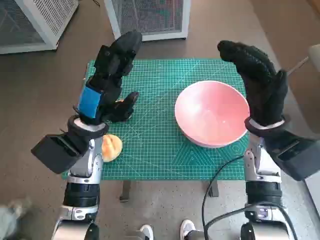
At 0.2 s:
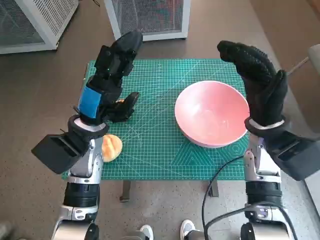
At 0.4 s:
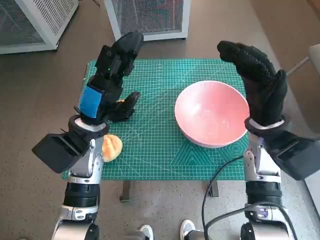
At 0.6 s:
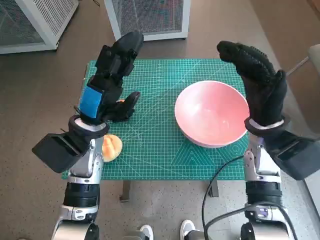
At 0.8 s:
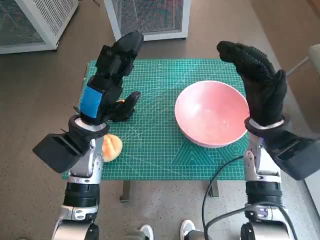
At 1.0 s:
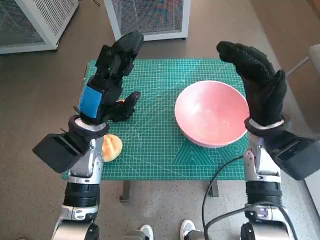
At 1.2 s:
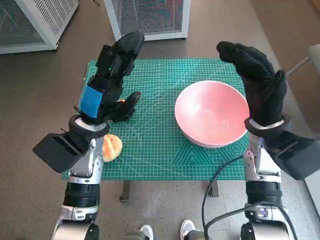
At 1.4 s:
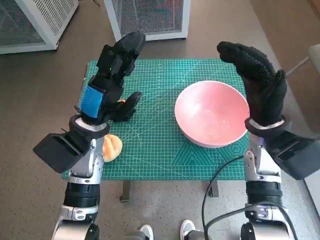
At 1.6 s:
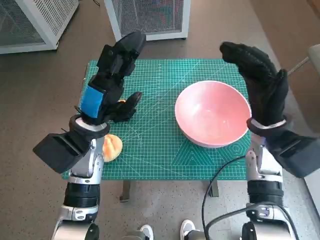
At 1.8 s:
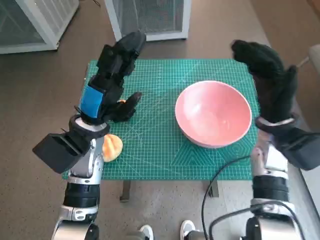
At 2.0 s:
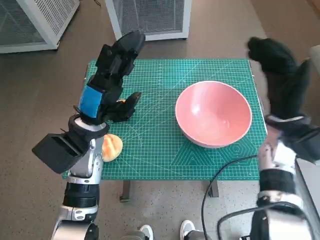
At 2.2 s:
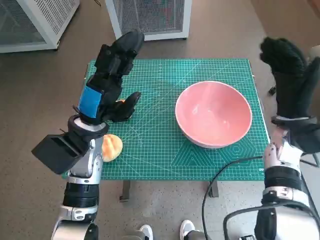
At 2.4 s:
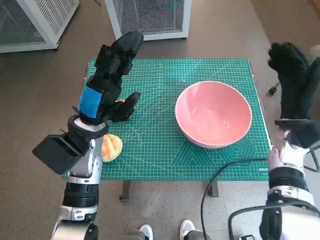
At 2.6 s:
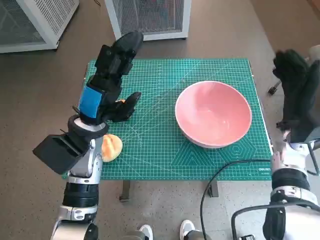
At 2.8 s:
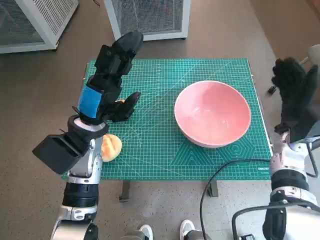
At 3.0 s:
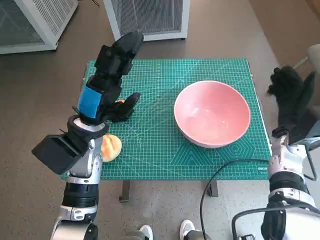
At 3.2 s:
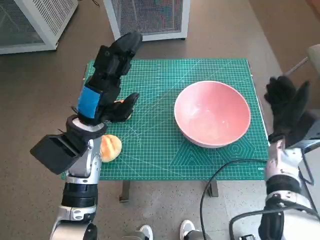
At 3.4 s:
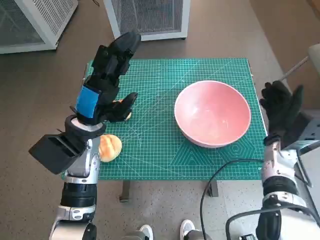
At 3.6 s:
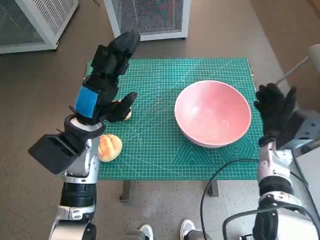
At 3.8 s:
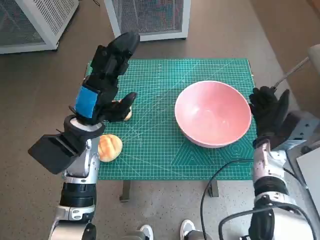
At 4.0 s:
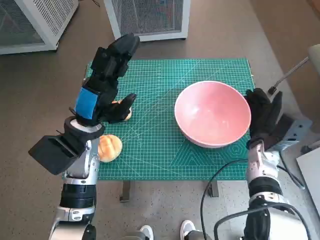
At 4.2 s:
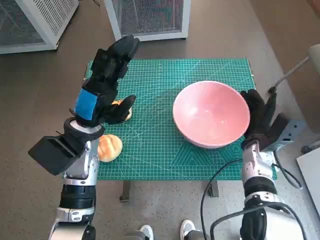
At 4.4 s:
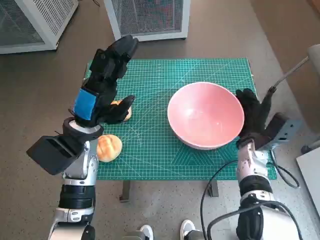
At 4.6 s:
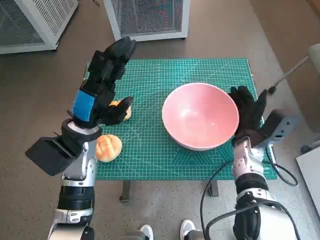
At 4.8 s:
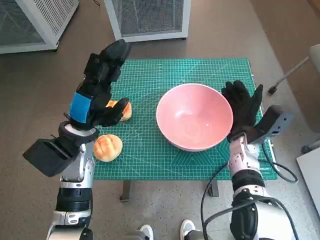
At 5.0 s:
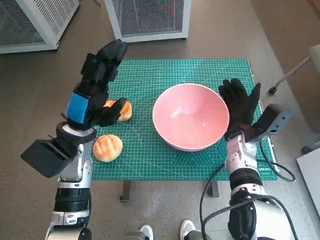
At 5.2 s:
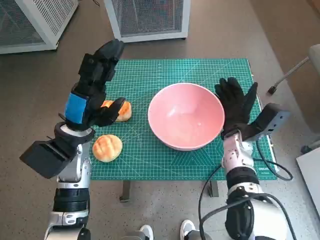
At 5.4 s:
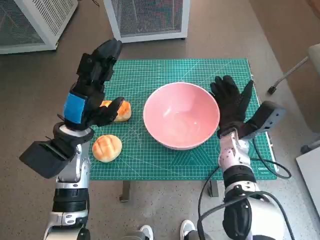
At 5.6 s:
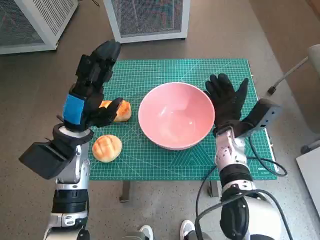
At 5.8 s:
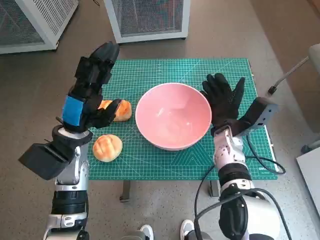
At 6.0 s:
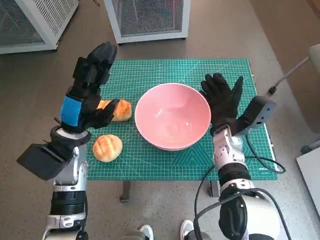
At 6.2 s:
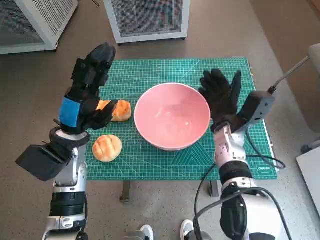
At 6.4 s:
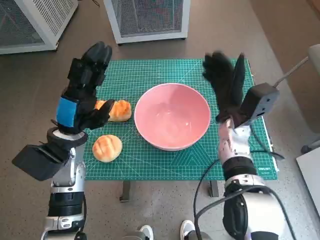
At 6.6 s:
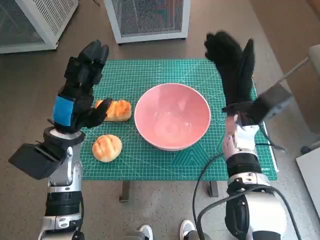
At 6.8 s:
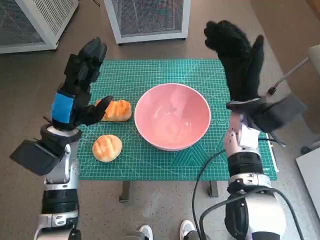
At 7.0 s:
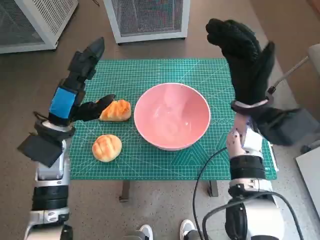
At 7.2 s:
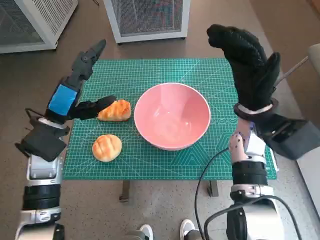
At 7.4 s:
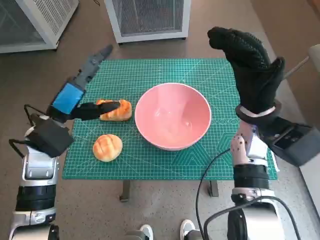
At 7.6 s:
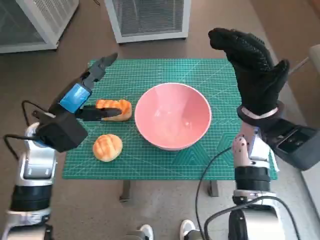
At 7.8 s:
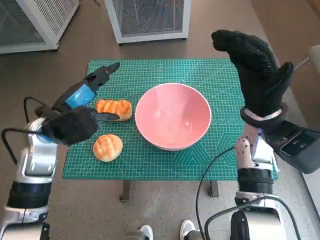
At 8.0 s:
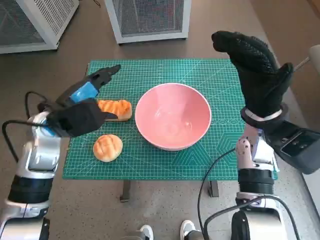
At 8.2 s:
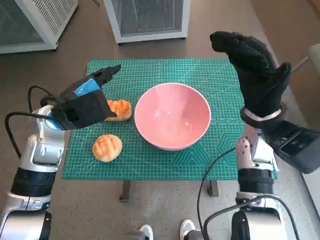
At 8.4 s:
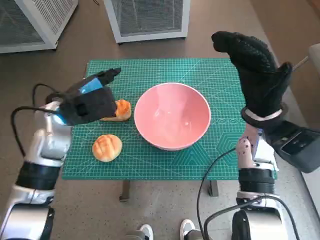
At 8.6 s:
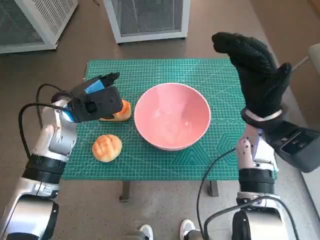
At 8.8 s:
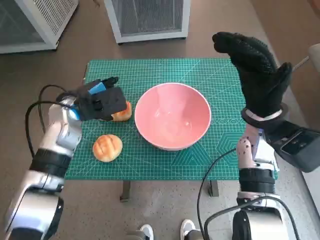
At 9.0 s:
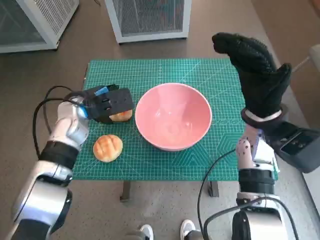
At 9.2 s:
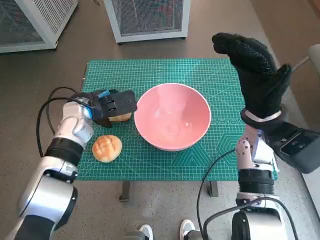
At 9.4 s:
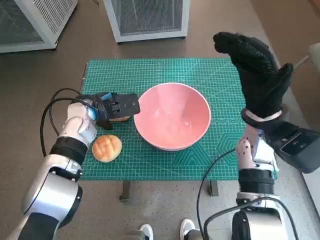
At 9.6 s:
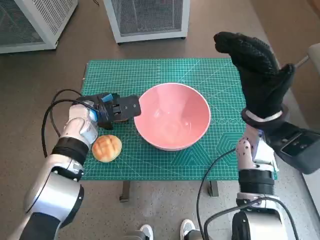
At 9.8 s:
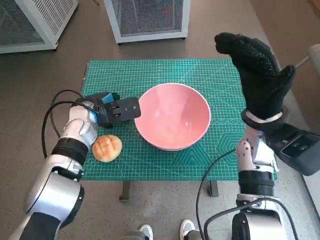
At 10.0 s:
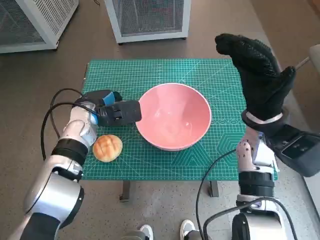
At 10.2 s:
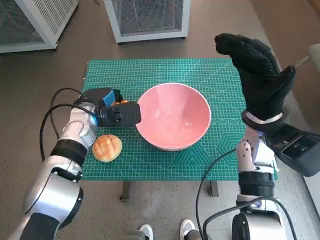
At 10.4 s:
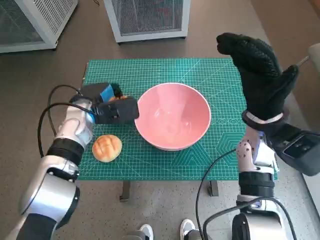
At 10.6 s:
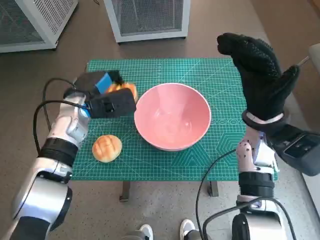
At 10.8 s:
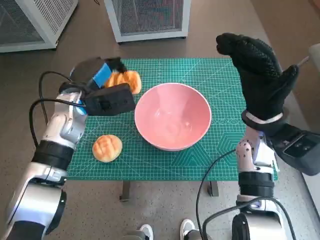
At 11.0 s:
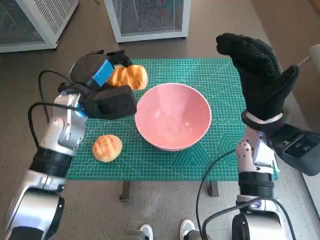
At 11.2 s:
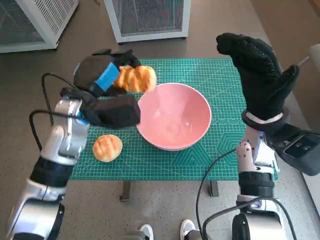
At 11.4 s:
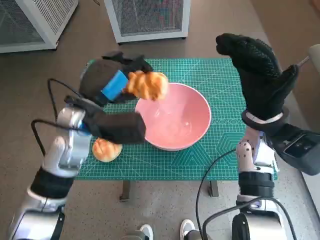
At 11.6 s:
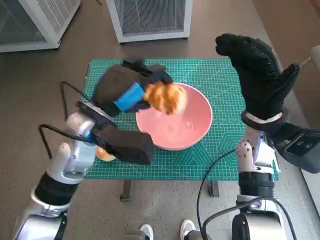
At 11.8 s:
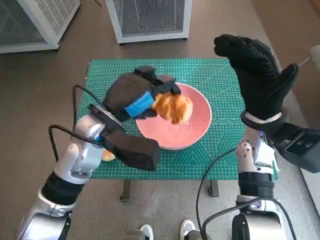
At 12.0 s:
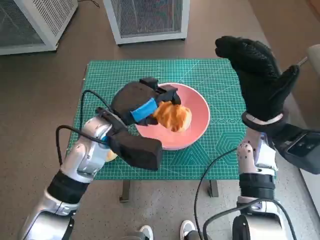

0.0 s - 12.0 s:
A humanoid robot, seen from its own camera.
Task of the whole recording: Push the bowl into the center of the table and put the bread into the bowl.
Step, 0.0 s - 6.2 s: Move the pink bowl to the center of table with right hand.
Step, 6.4 s - 10.0 s: Grasp the long bread with left hand.
1.6 s - 3.0 s: The right hand travels to the right and downward by approximately 10 cm.
3.0 s - 4.4 s: The right hand moves to the left, roughly 5 cm.
4.4 s - 6.0 s: The right hand is displaced to the left by approximately 5 cm.
6.0 s - 7.6 s: The right hand travels upward by approximately 10 cm.
7.6 s - 9.0 s: The left hand travels forward by approximately 5 cm.
9.0 s - 10.4 s: The hands stay close to where they were, moving slightly.
10.4 s - 12.0 s: The left hand goes about 10 cm to the right and backward.

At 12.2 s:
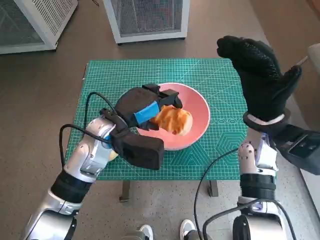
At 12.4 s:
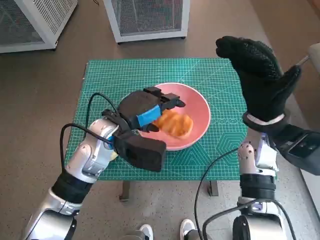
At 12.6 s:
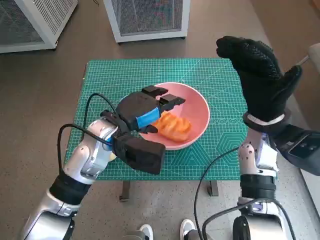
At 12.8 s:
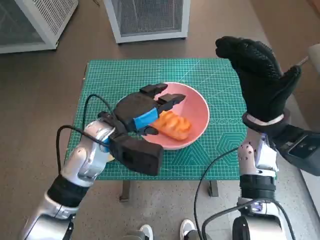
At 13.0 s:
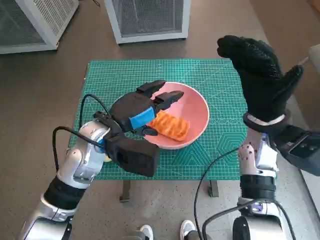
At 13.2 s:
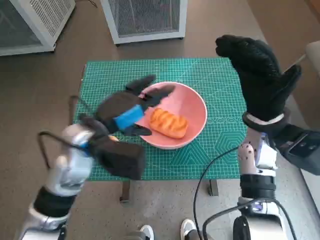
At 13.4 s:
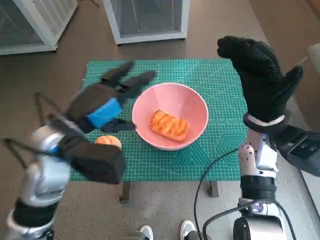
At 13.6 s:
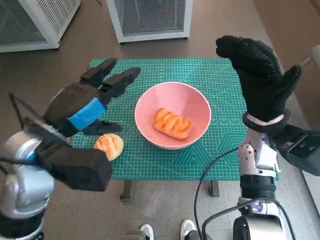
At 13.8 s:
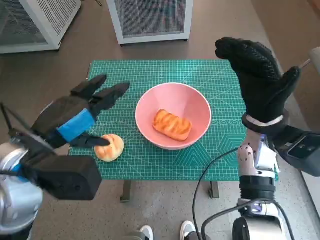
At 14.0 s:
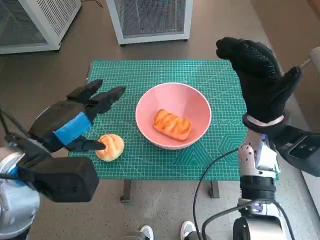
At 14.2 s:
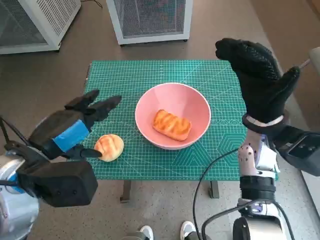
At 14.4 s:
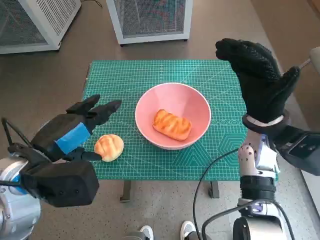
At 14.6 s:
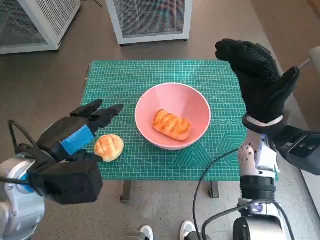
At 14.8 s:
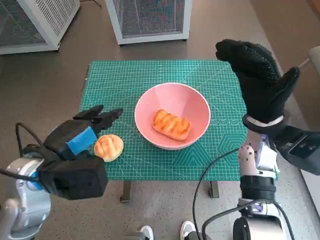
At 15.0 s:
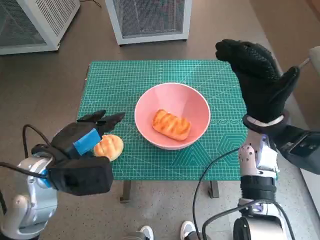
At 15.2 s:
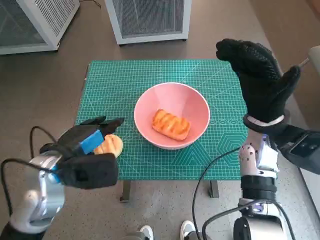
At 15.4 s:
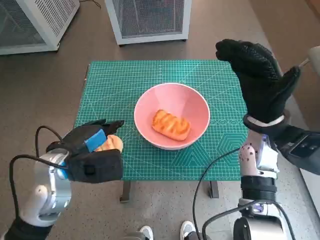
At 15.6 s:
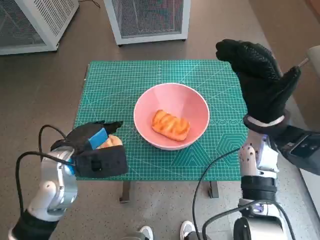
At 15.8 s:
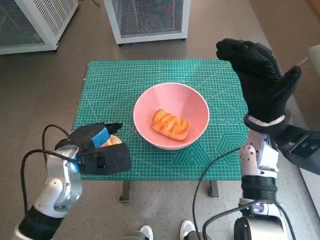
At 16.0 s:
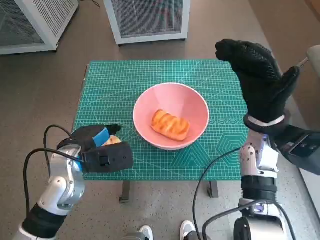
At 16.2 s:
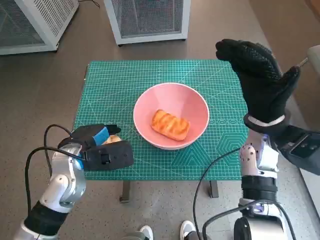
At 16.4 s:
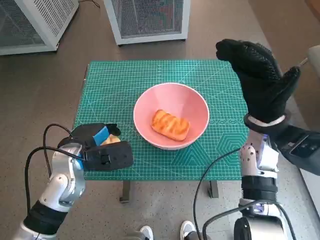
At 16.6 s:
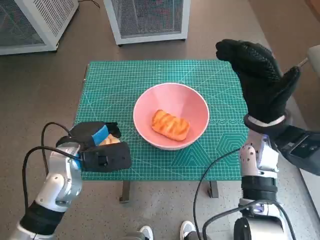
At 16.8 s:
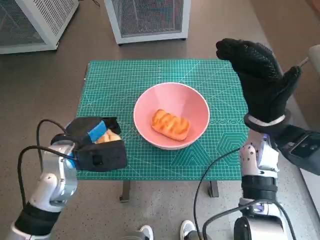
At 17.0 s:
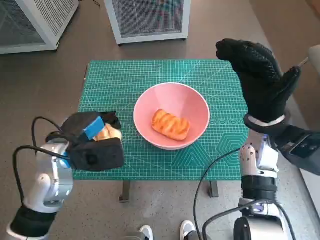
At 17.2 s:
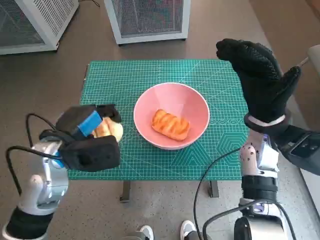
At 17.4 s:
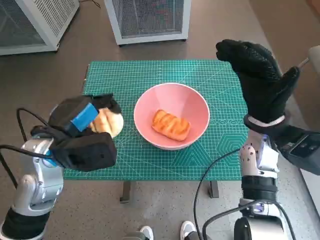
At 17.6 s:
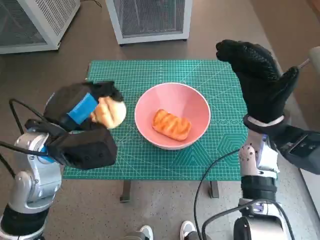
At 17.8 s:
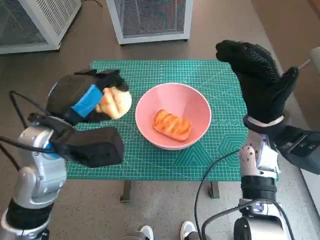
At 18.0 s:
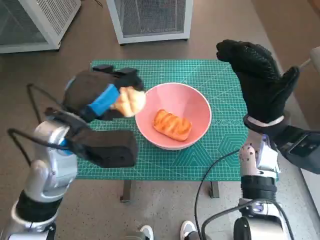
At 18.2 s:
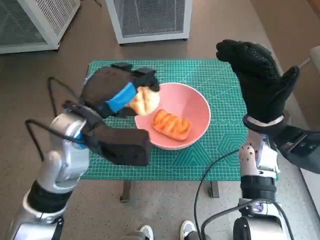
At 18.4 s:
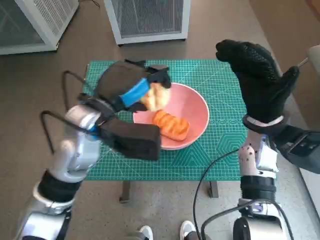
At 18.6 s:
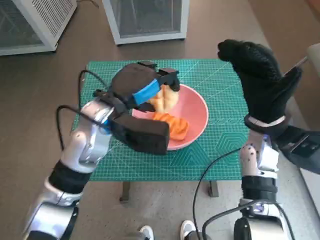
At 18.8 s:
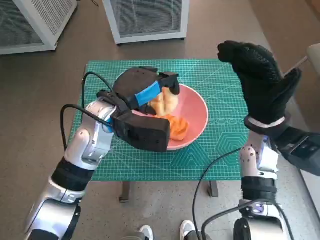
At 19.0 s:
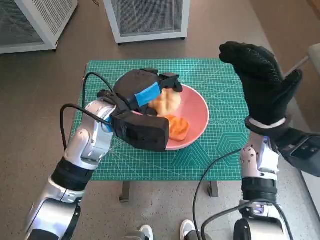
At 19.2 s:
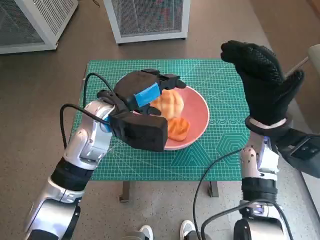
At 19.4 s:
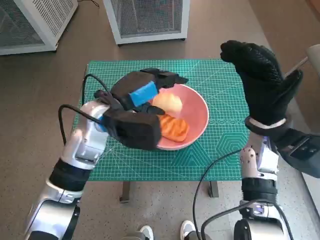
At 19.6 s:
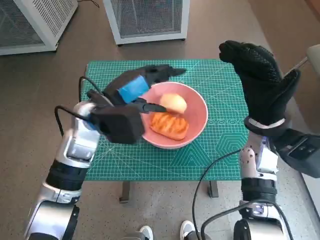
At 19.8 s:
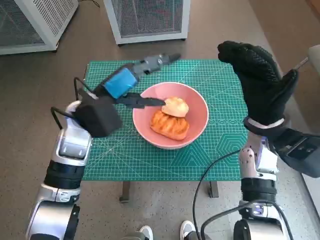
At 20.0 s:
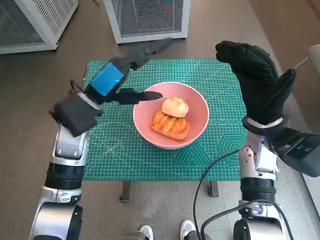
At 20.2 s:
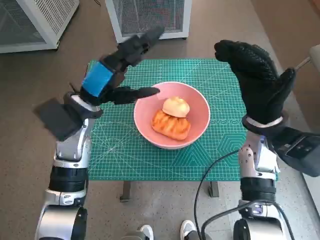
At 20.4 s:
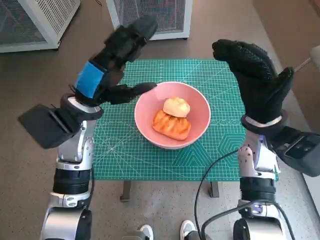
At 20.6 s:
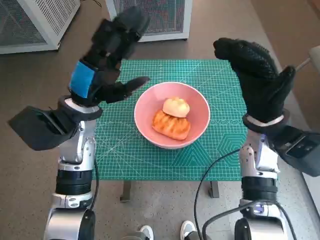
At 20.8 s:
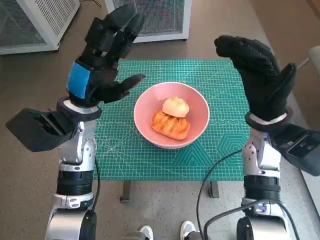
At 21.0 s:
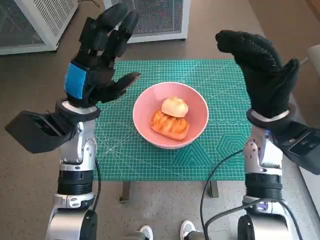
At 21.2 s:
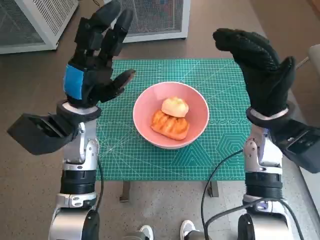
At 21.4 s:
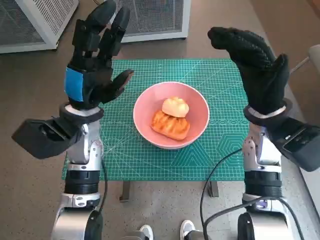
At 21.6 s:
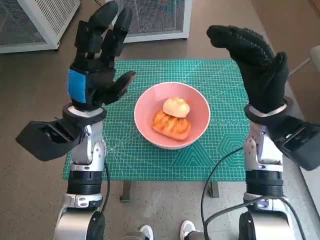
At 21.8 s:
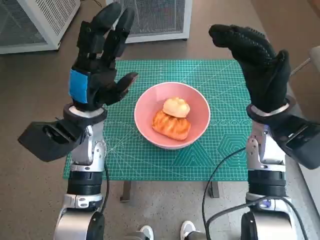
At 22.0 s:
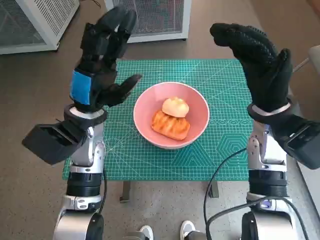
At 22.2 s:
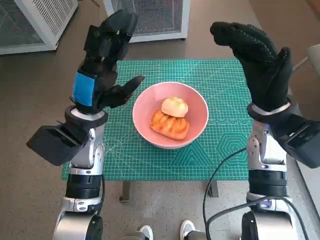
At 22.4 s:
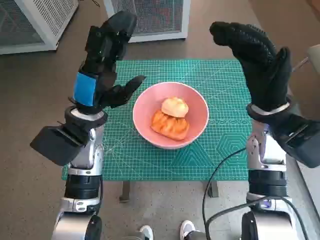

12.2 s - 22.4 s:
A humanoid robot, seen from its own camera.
Task of the whole recording: Push the bowl into the center of the table and put the bread into the bowl.
Step, 12.6 s - 16.4 s: Grasp the round bread with left hand.
Step, 16.6 s - 19.2 s: Place the round bread in pink bowl with left hand.
12.2 s - 13.6 s: The left hand moves upward, backward and to the left, approximately 10 cm.
13.6 s - 15.2 s: The left hand is displaced downward by roughly 5 cm.
15.2 s - 16.6 s: The left hand ends up approximately 5 cm from where it was.
16.6 s - 18.0 s: The left hand travels upward by approximately 10 cm.
18.0 s - 19.4 s: The left hand goes some 5 cm forward.
19.4 s - 21.0 s: The left hand goes roughly 5 cm to the left.
